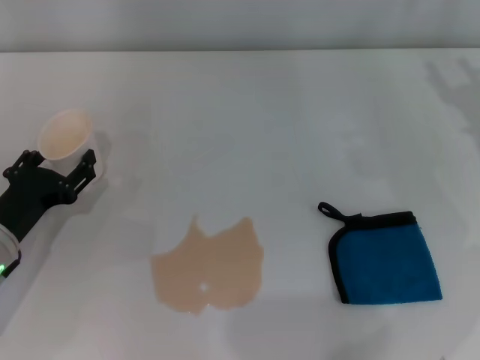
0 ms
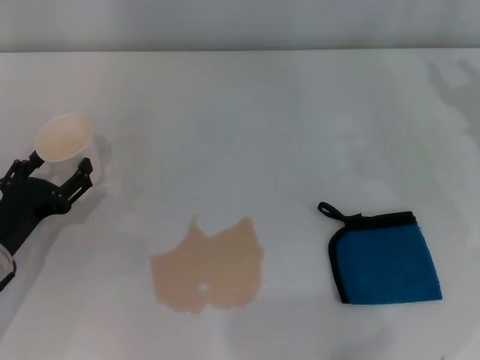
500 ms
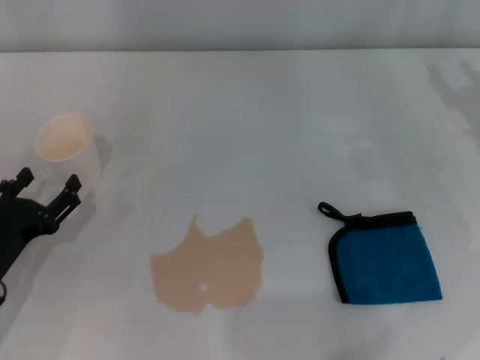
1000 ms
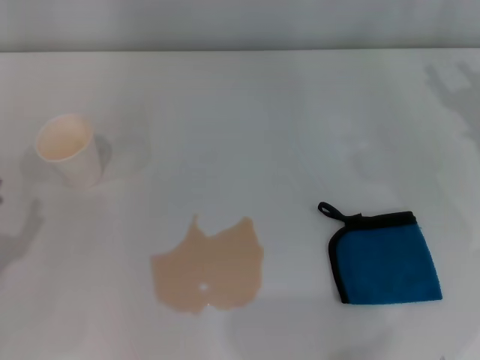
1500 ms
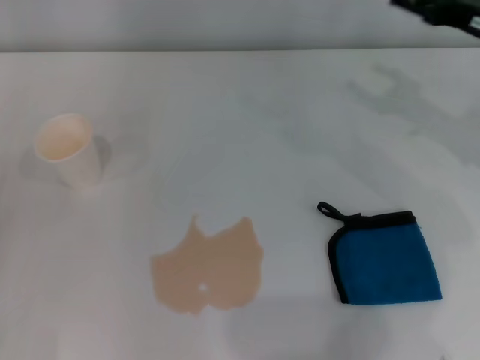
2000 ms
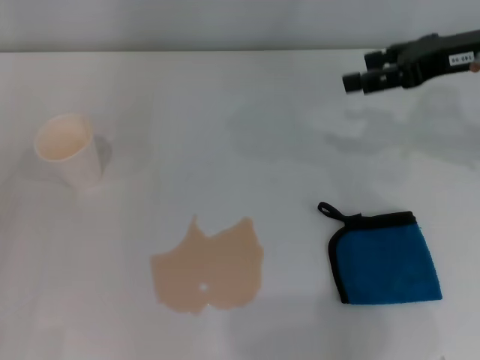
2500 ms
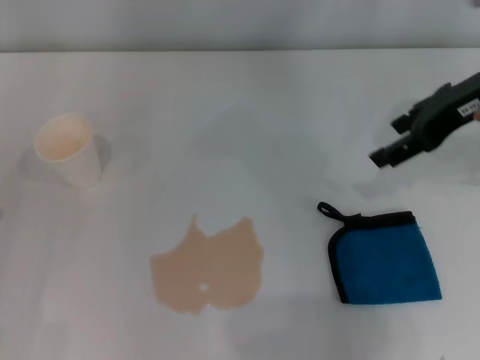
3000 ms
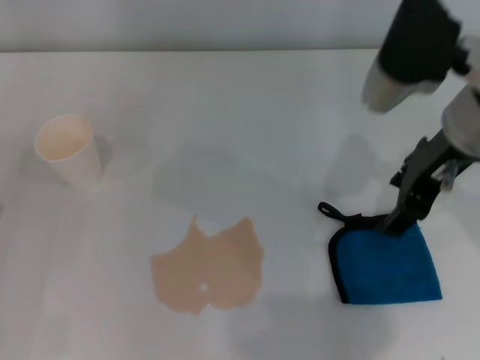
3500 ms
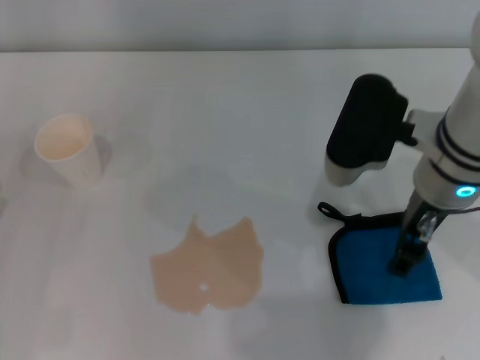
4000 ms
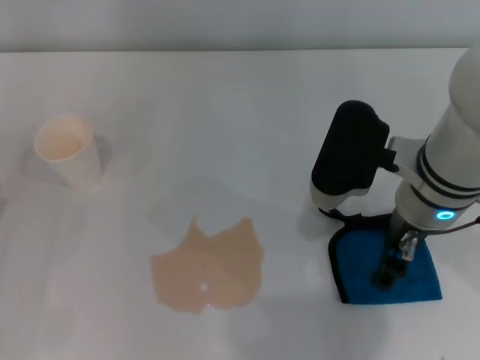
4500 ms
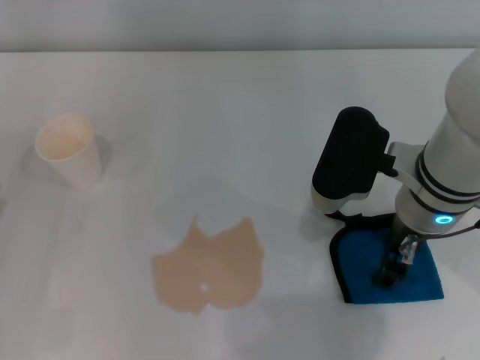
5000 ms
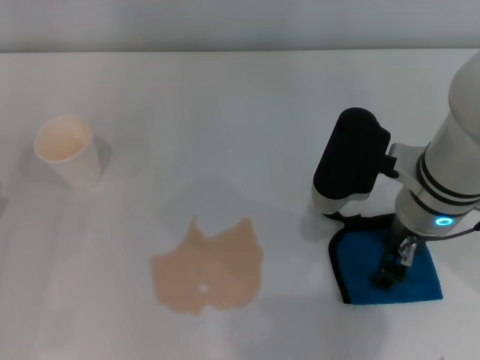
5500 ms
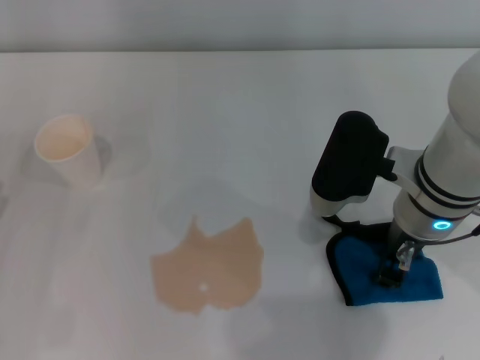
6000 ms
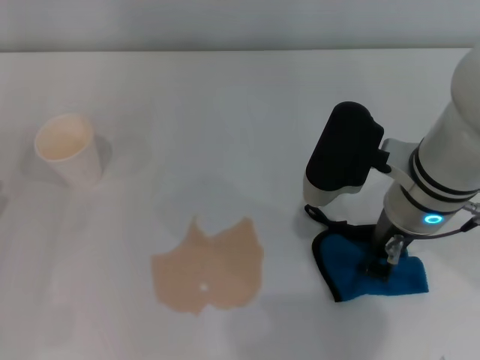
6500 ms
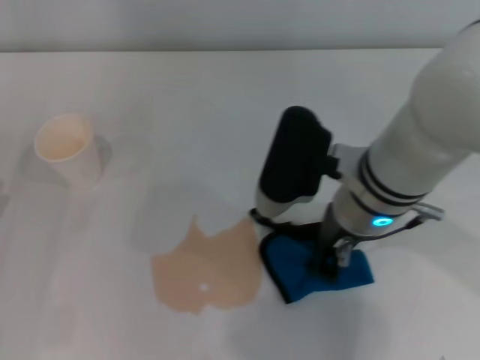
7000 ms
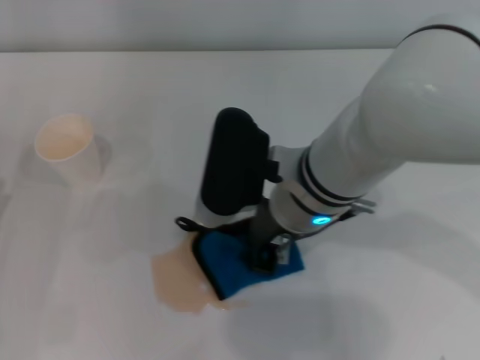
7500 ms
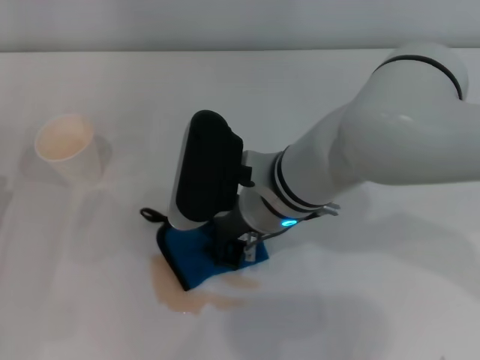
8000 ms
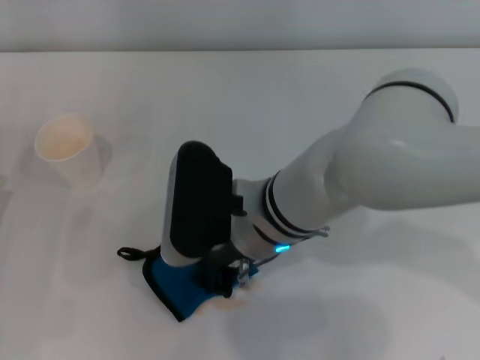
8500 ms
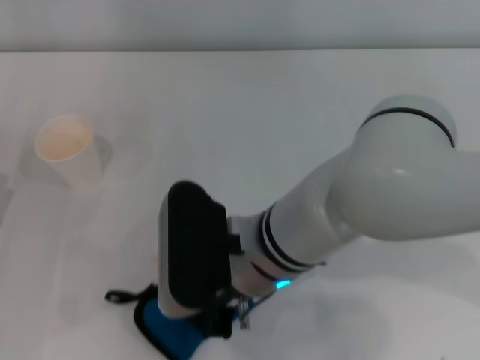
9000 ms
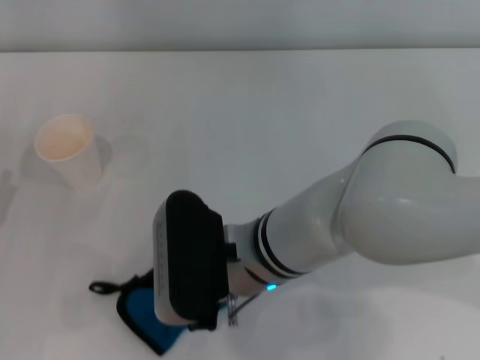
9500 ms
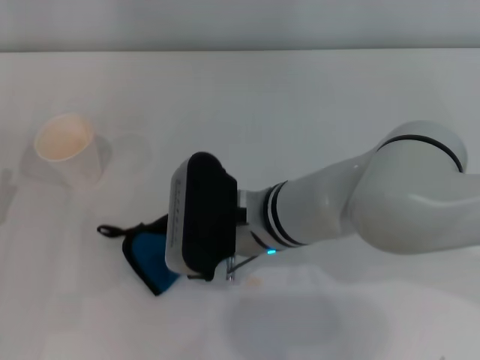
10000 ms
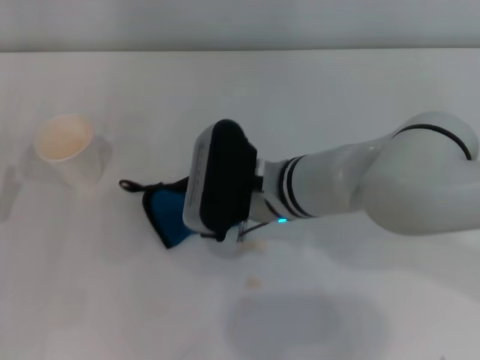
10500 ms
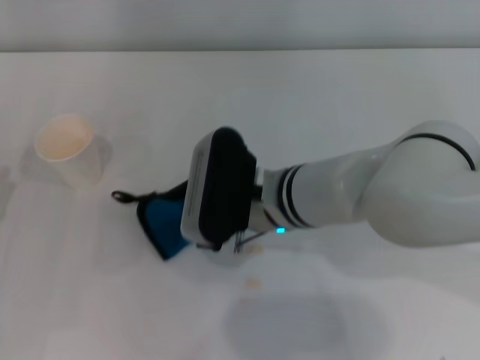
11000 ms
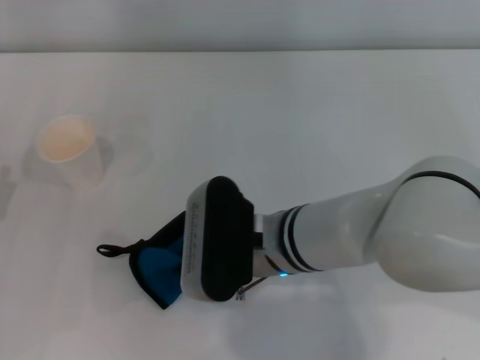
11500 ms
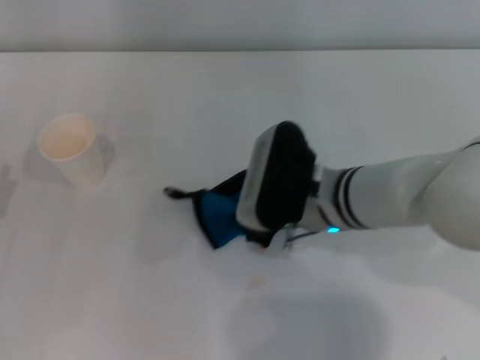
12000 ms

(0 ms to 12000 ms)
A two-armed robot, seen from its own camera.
Step, 1000 ms - 6000 ms: Grasp the rag with the right gripper.
0 ms - 2000 ms: The left gripper travels backward and to the left by roughly 15 cm, and opens. The right gripper ends up some 5 cm from where it was.
2000 ms - 4000 ms: The right gripper heads to the left and backward, covering some 15 cm.
4000 ms - 6000 ms: The grippers move only a little.
6000 ms - 8000 ms: The right gripper travels to the left by approximately 10 cm, and closes up.
8000 ms - 10000 ms: The grippers make only small movements.
10000 ms - 12000 ms: The right gripper is displaced to the right by approximately 5 cm.

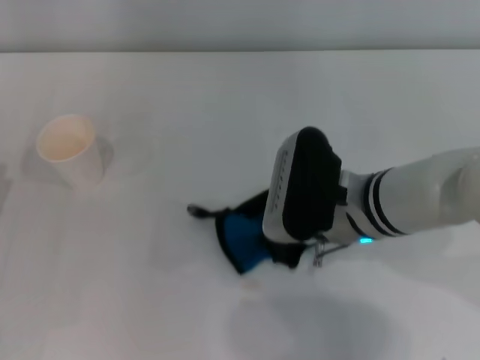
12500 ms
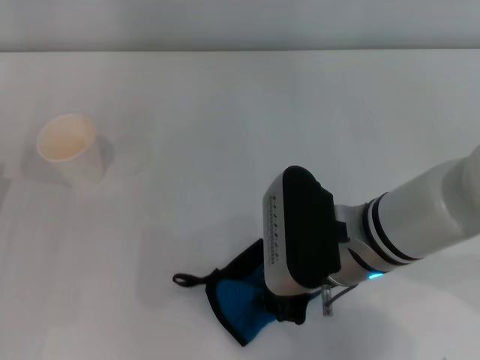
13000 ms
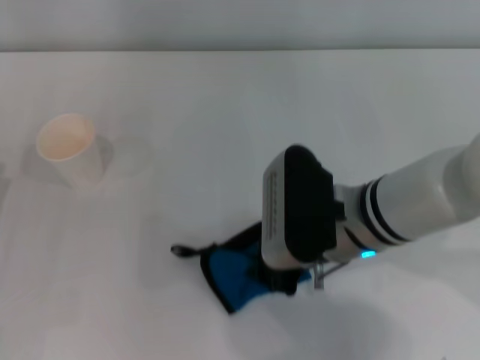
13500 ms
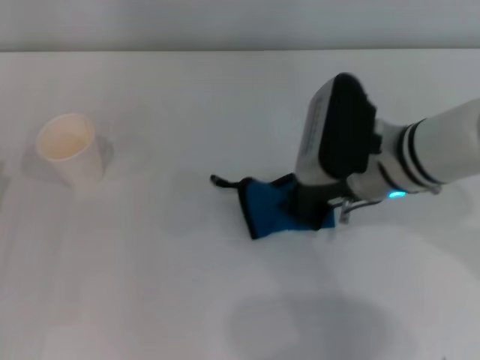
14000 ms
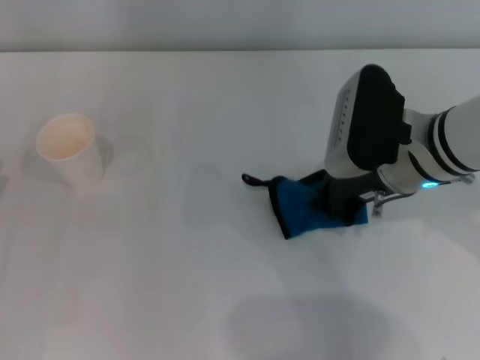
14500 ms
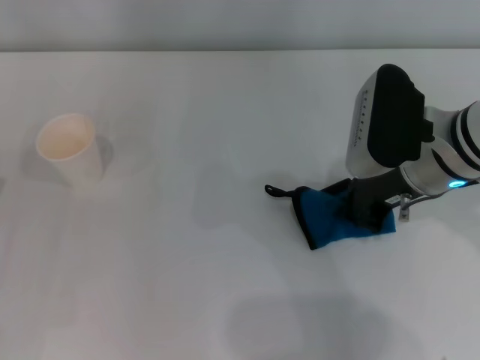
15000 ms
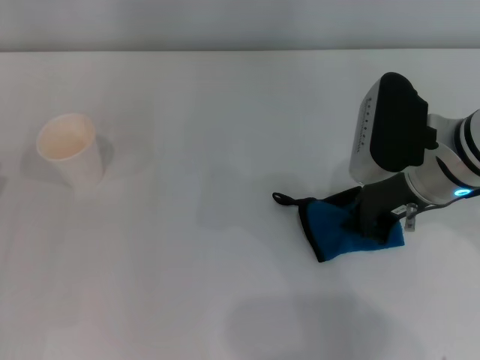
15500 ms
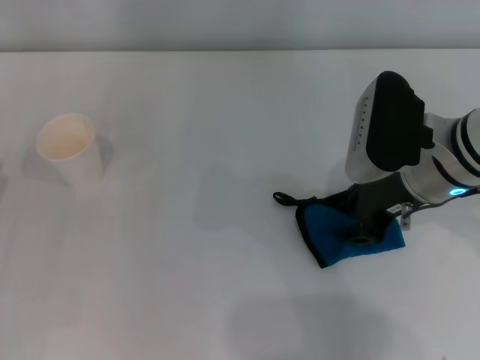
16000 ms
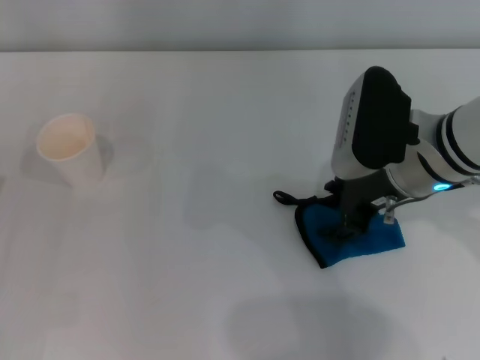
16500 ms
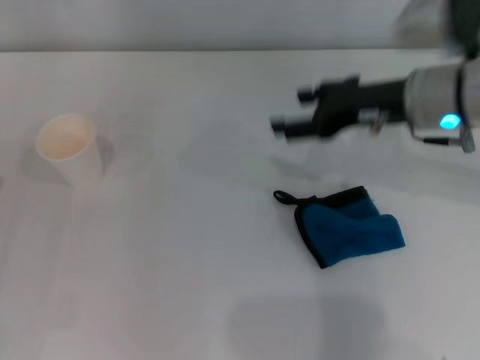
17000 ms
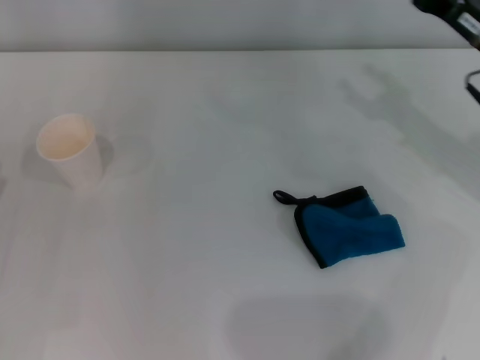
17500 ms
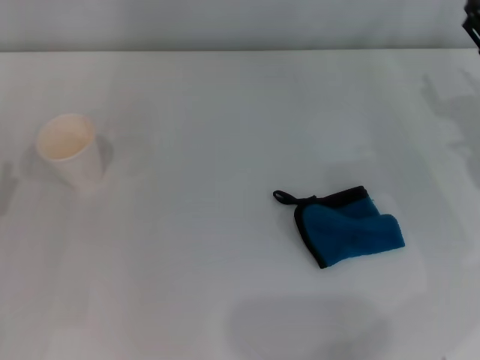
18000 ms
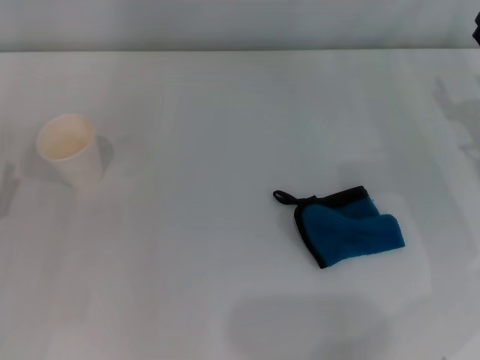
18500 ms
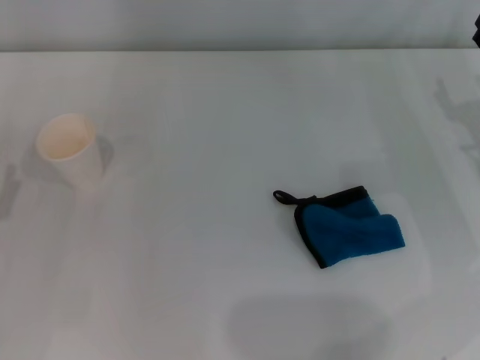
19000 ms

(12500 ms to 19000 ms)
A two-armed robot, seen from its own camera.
Step, 12500 ms - 15500 ms: Wipe the stains off the table with the right gripper.
12500 ms - 14500 ms: The right gripper moves to the right, approximately 5 cm.
14500 ms - 17000 ms: The right gripper changes place by some 5 cm, and opens up.
17000 ms - 19000 ms: The right gripper moves to the right and downward, about 15 cm.

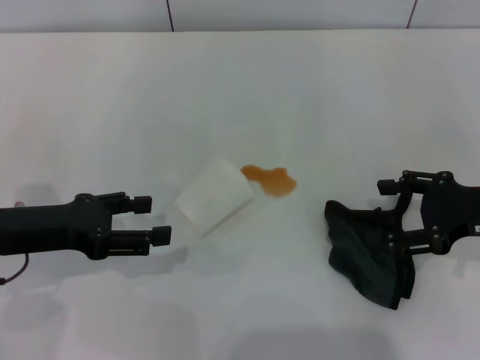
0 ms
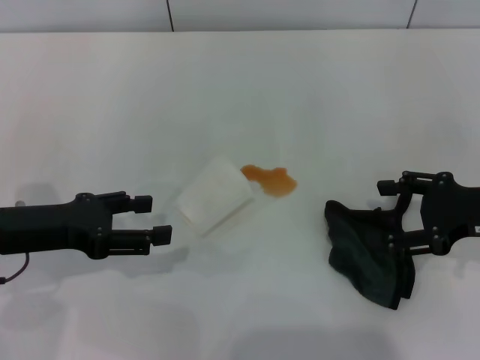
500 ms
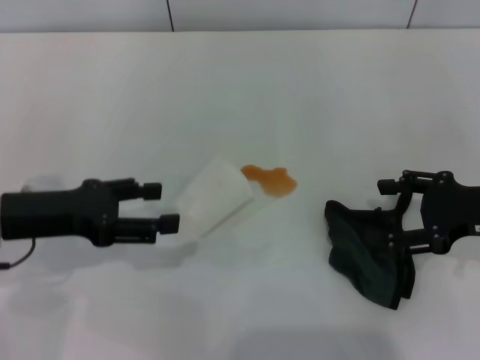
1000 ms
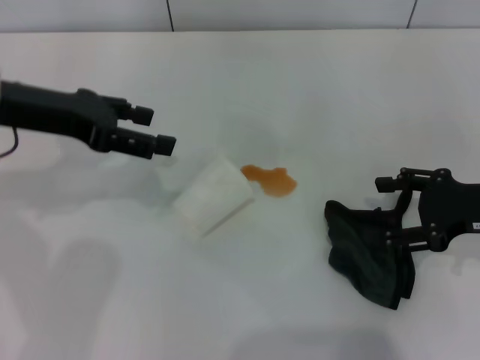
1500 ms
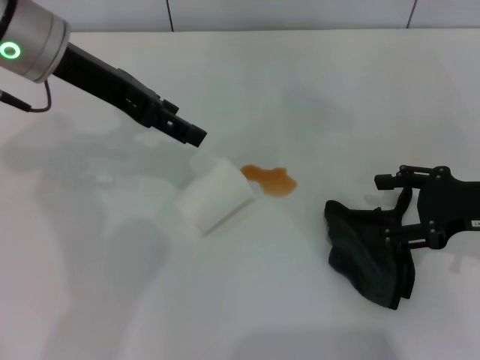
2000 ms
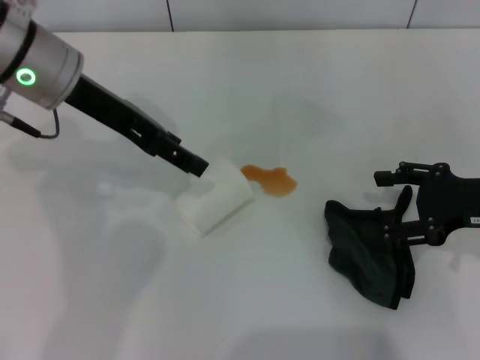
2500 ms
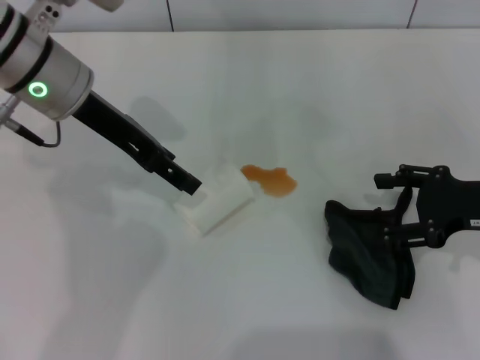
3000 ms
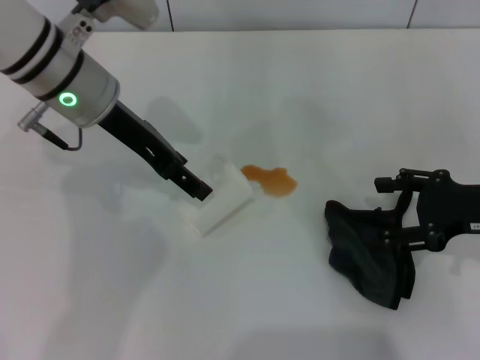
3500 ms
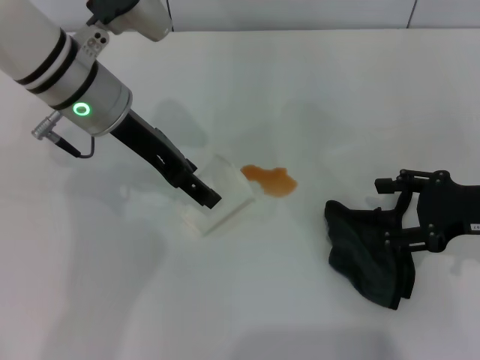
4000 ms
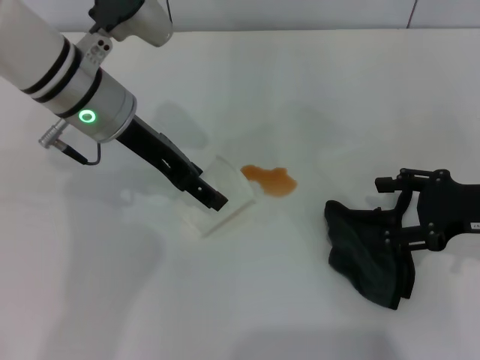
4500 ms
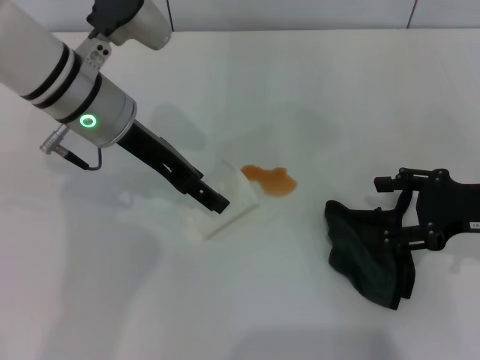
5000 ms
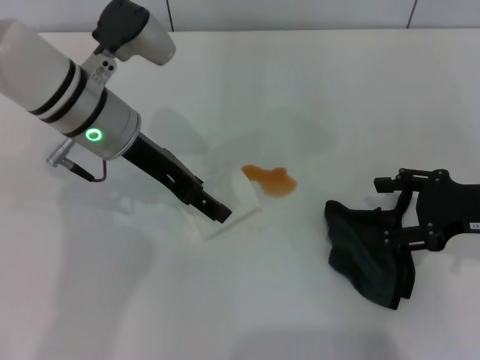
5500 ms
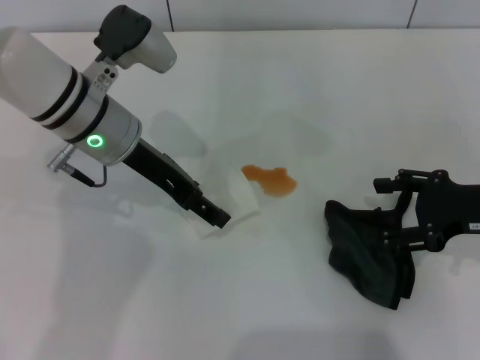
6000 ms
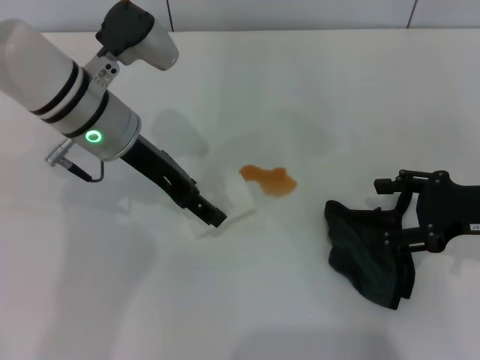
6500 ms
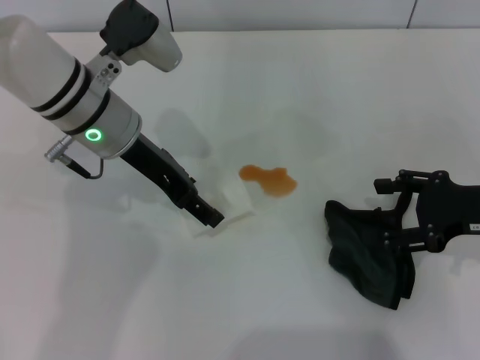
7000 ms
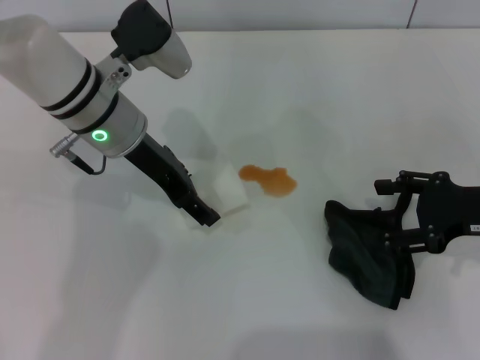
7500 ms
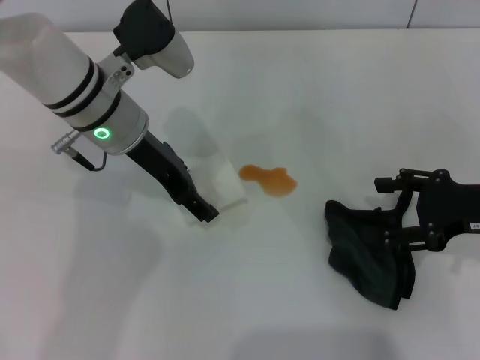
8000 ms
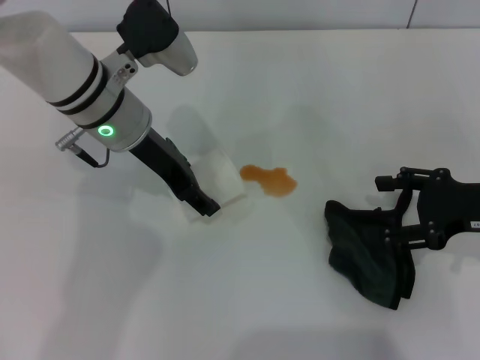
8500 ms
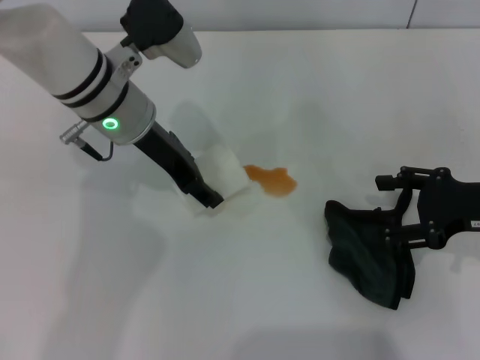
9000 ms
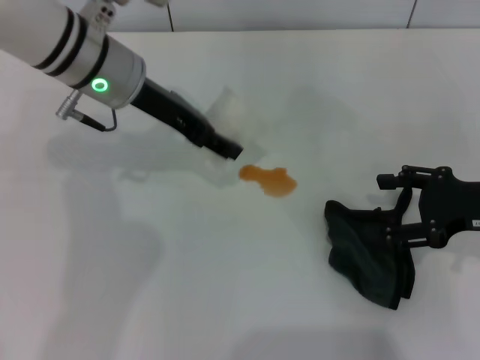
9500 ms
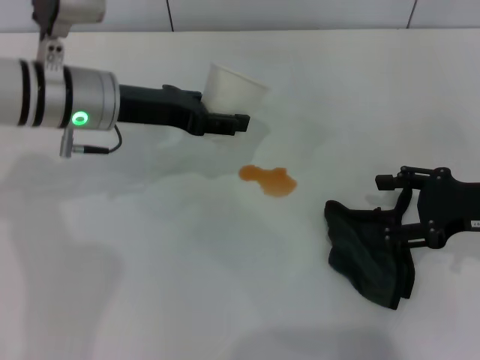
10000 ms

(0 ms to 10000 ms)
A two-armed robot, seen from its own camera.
Step, 0 ms - 8000 ms: Grasp the paper cup with the left gripper.
0 ms - 2000 ms: The left gripper heads upward, forward and to the right, covering some 20 cm.
2000 ms - 4000 ms: The left gripper shifts approximately 5 cm downward.
4000 ms - 8000 ms: The grippers stay close to where they were, moving slightly.
8000 ms - 10000 ms: The left gripper closes.
